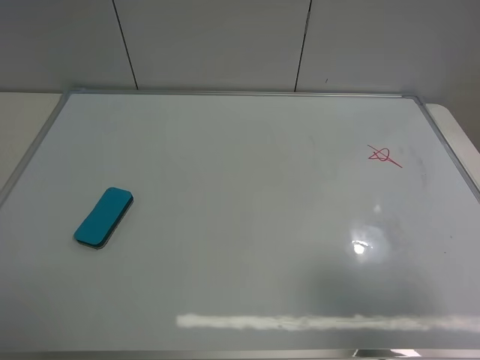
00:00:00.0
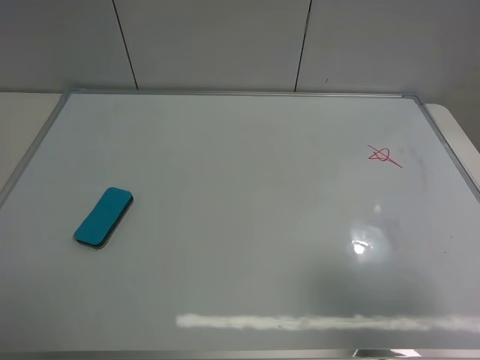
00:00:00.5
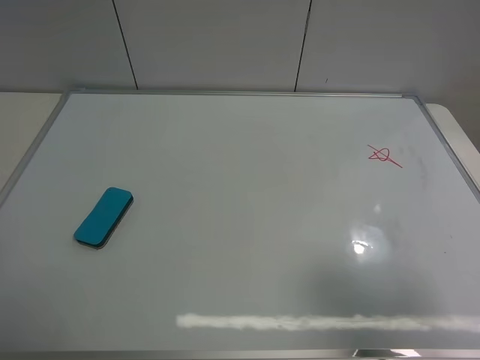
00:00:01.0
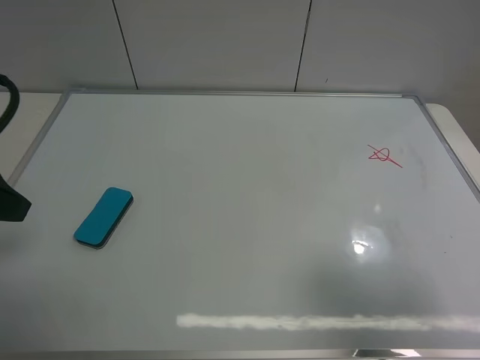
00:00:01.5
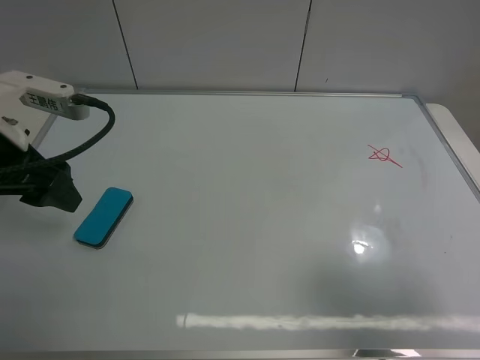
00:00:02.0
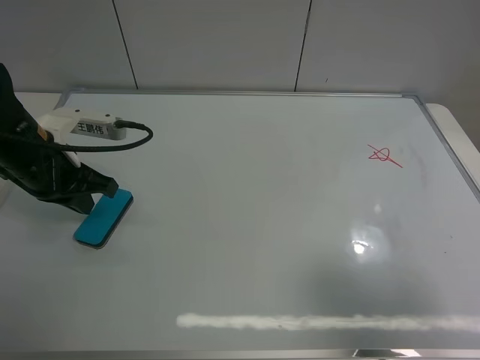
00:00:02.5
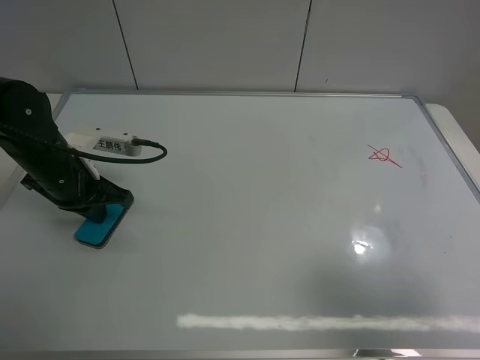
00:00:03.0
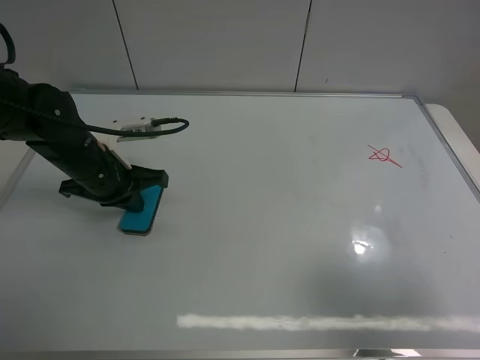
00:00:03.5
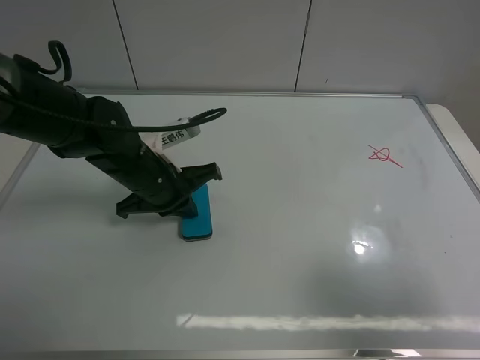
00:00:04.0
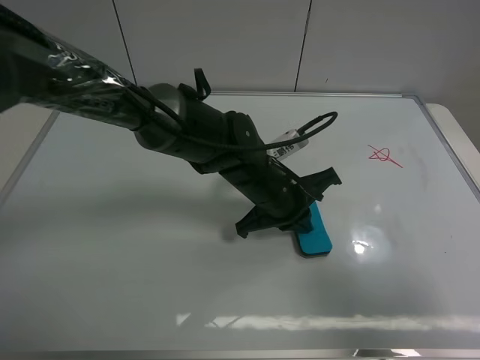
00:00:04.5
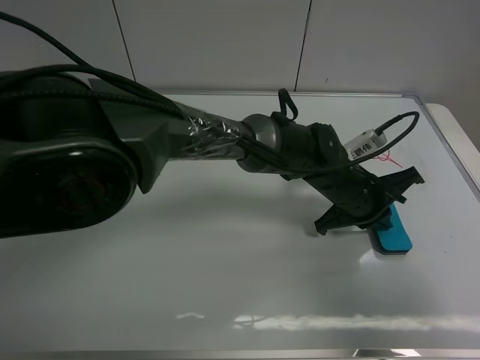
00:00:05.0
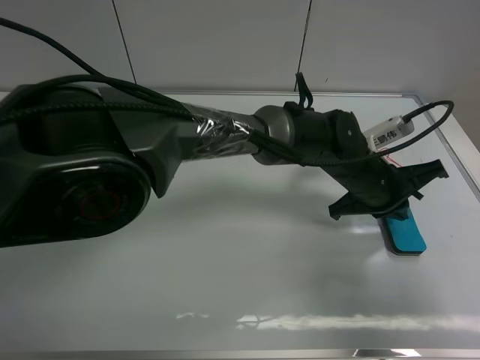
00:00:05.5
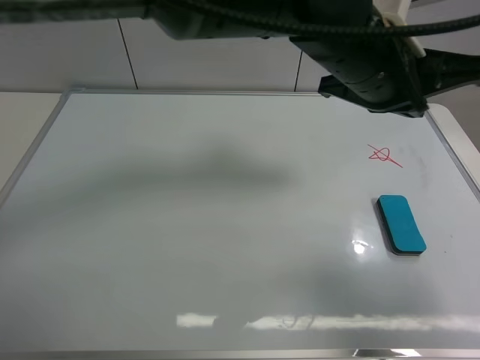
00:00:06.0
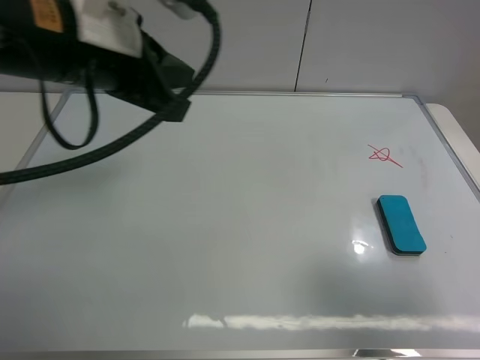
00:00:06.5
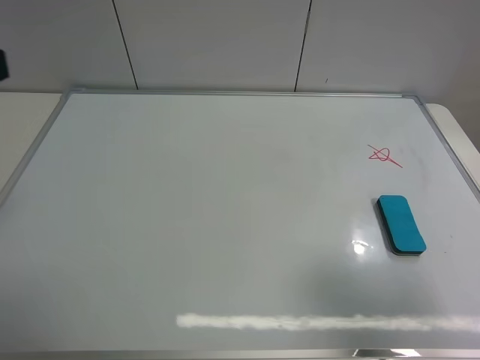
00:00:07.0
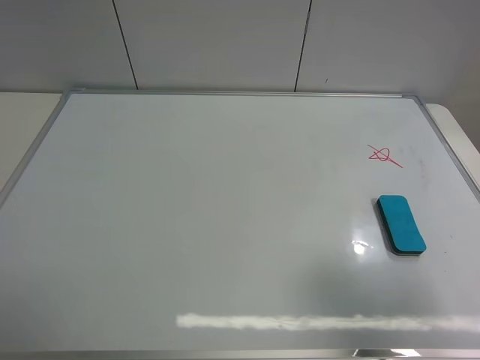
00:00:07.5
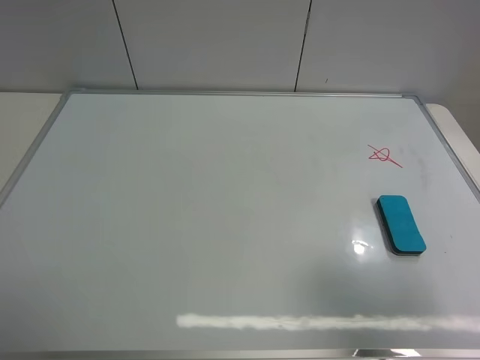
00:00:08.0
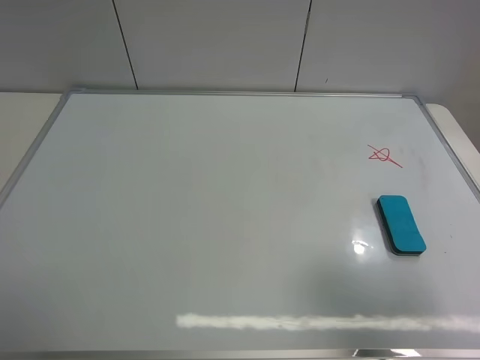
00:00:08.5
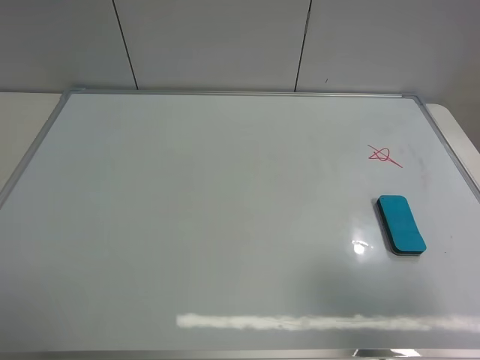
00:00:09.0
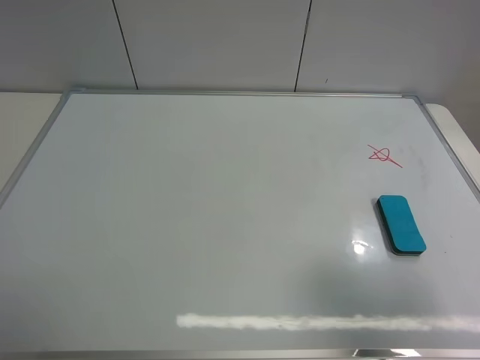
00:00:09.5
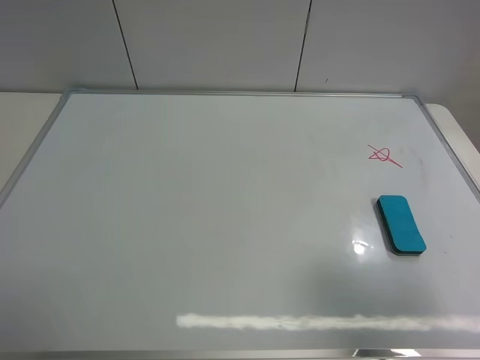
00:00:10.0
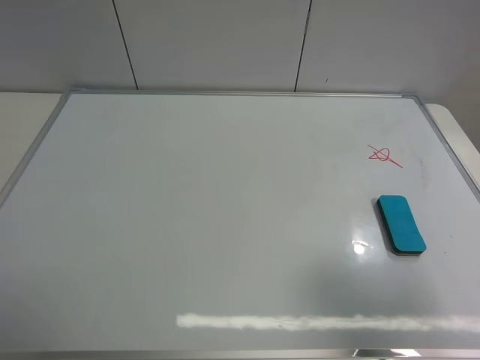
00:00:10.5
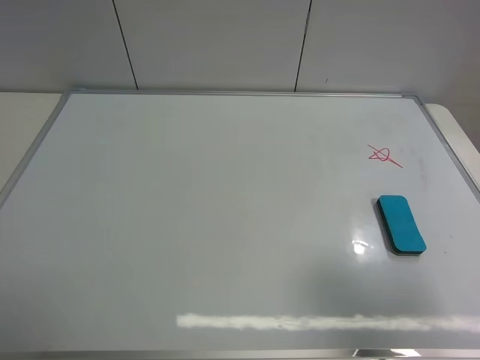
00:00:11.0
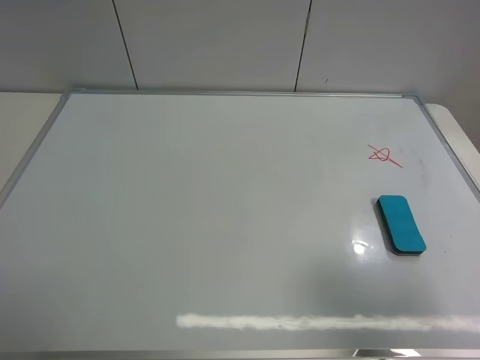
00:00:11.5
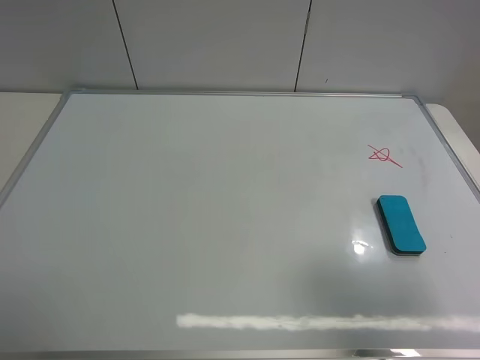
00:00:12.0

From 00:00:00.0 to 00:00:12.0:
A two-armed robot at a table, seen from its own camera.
Task of the whole recording: use the left gripper to place the eraser in the right, use the right gripper to pick up the eraser, wipe the notes on the whiteboard clean, and then put it down.
Step, from 00:00:00.0 to 00:00:05.0: Move the board eraser to the right of the whiteboard with left gripper.
From 00:00:00.0 to 00:00:02.0: The left gripper is displaced forward by some 20 cm, and closes up.
From 00:00:02.0 to 00:00:04.0: The left gripper heads to the right and downward, covering some 20 cm, and closes.
From 00:00:04.0 to 00:00:06.0: The left gripper travels to the right and upward by approximately 25 cm.
From 00:00:06.0 to 00:00:08.0: The left gripper travels to the left and backward by about 50 cm, and opens its fingers.
From 00:00:10.0 to 00:00:12.0: Neither gripper changes place.

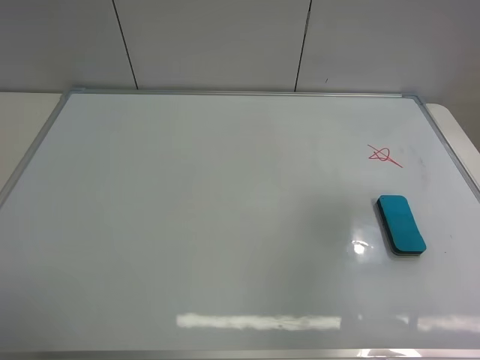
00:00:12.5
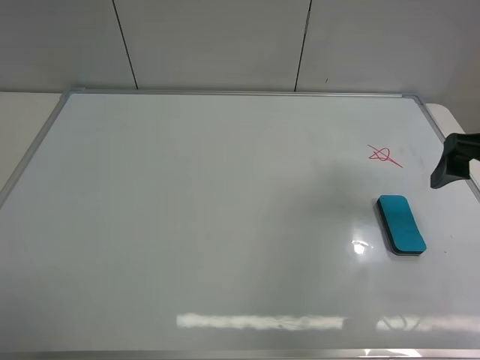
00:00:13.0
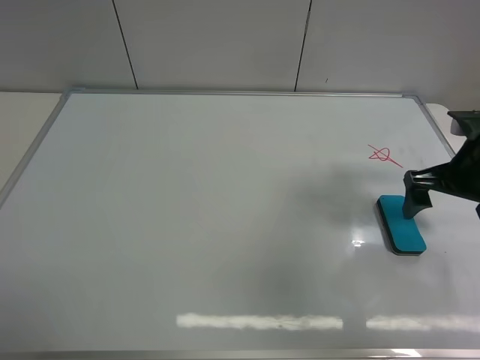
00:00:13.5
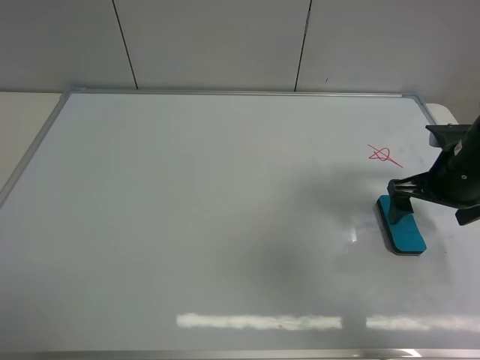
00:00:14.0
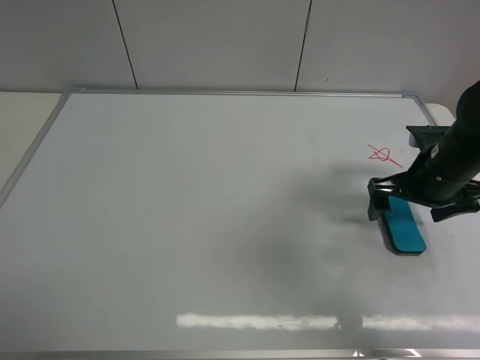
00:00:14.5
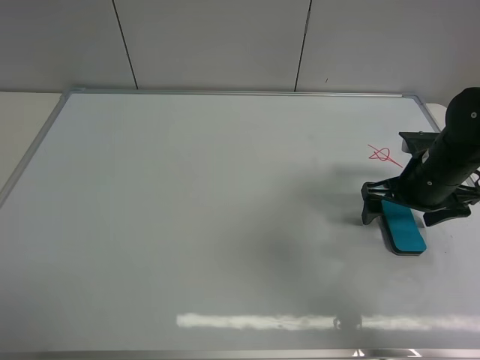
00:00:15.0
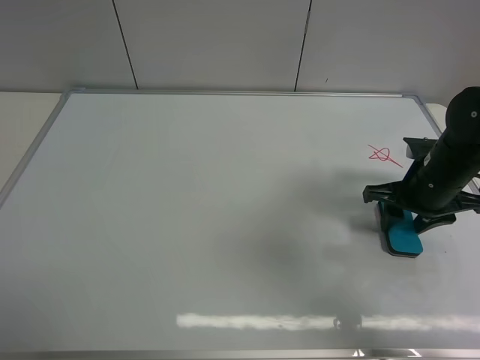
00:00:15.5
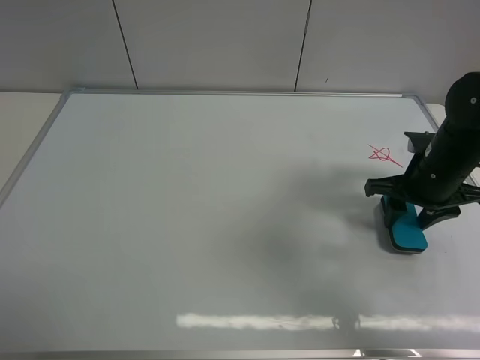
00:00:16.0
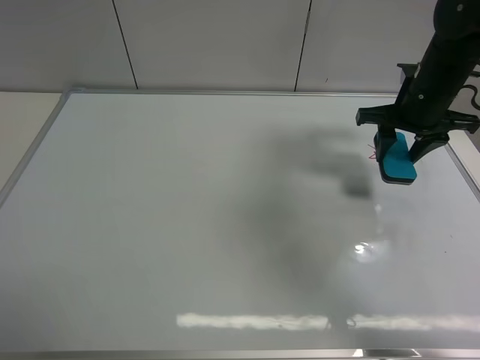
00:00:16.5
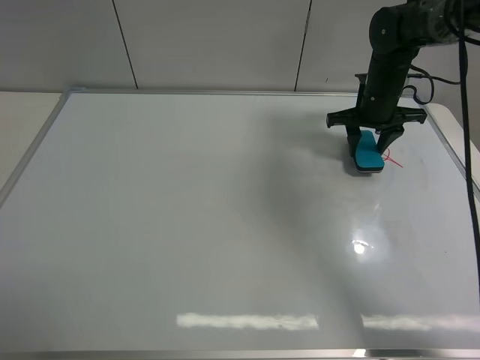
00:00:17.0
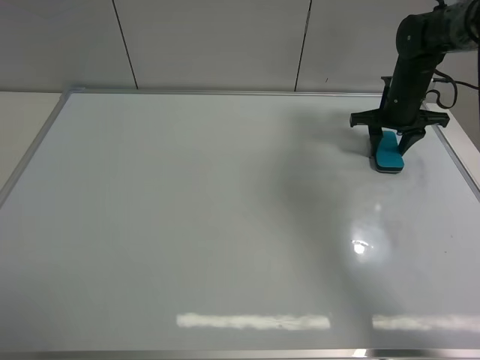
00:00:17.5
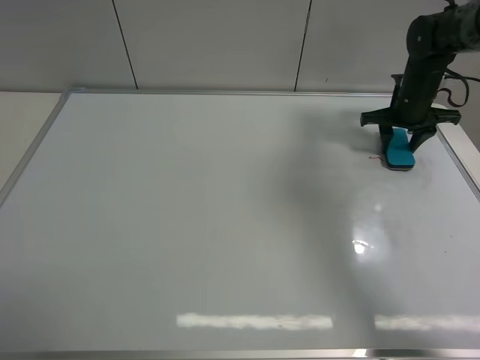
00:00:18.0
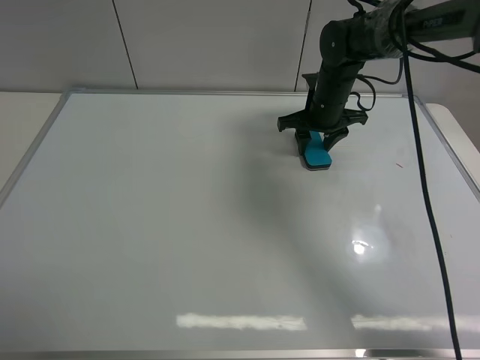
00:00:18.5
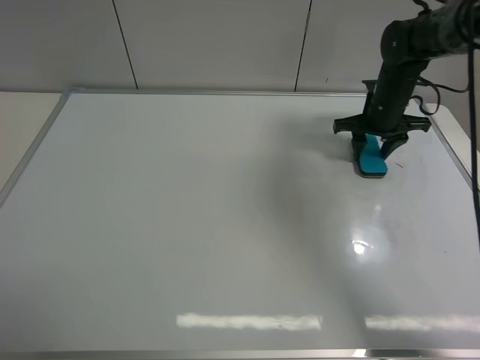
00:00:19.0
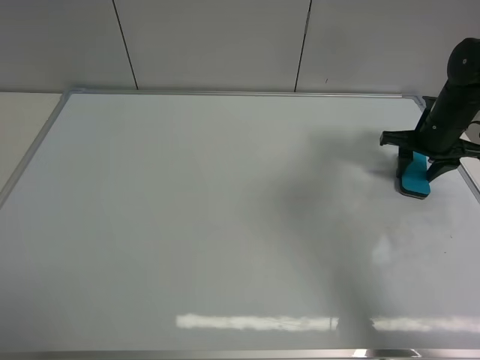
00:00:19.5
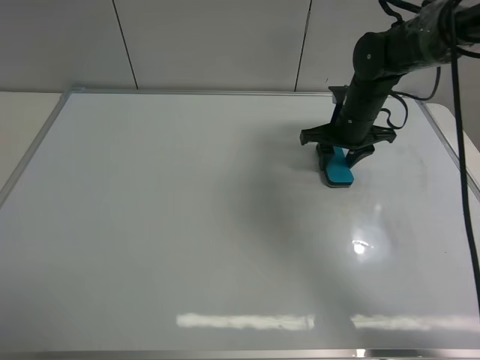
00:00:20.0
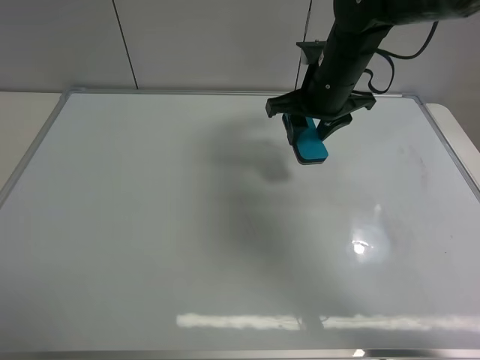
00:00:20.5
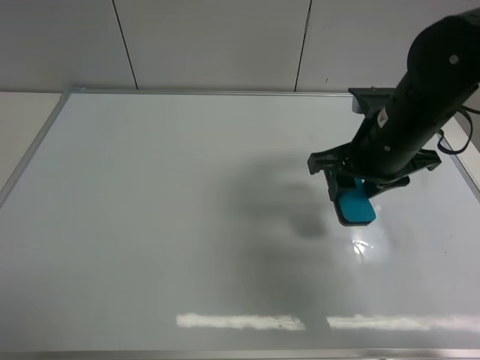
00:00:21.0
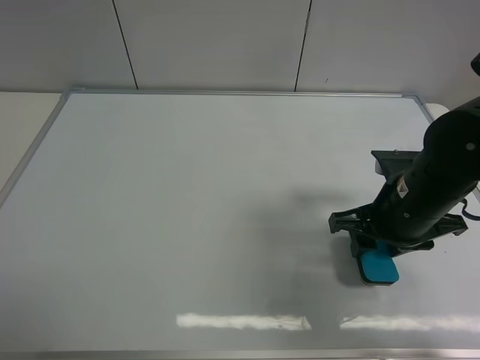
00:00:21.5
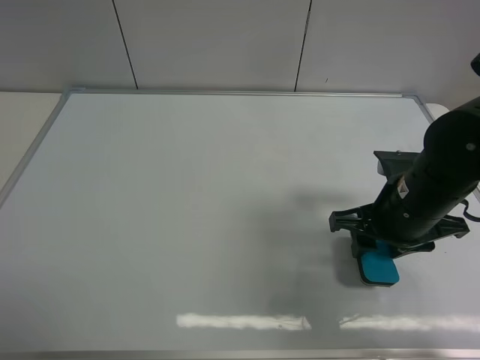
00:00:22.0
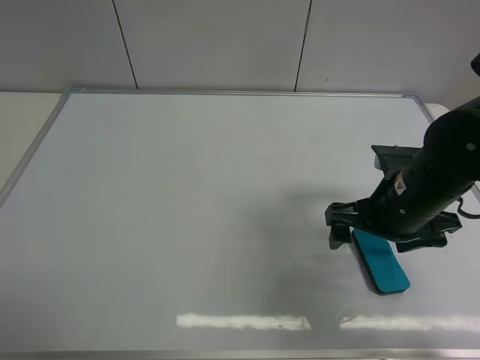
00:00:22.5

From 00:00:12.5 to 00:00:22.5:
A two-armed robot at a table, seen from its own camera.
Task of the whole recording: use the left gripper to place the eraser in the right, use the right gripper to pick up the eraser, wipe the notes on the whiteboard clean, and then put it down.
Step, from 00:00:12.5 to 00:00:16.0: Pick up the board eraser with right gripper.
Step, from 00:00:16.5 to 00:00:20.0: Wipe off the writing on the board with right gripper.
Step, from 00:00:20.5 to 00:00:22.0: Move the board eraser to the right of the whiteboard with right gripper.
From 00:00:12.5 to 00:00:14.5: The right gripper heads downward and forward, covering roughly 20 cm.
From 00:00:14.5 to 00:00:16.5: The right gripper is displaced forward and upward by about 10 cm, and closes up.
From 00:00:16.5 to 00:00:18.5: The right gripper travels to the left, forward and downward by roughly 15 cm.
From 00:00:18.5 to 00:00:20.5: The right gripper goes roughly 10 cm upward and backward, and goes to the right and returns, some 20 cm each way.
From 00:00:20.5 to 00:00:22.5: The right gripper goes some 20 cm backward, to the right and downward, and opens.

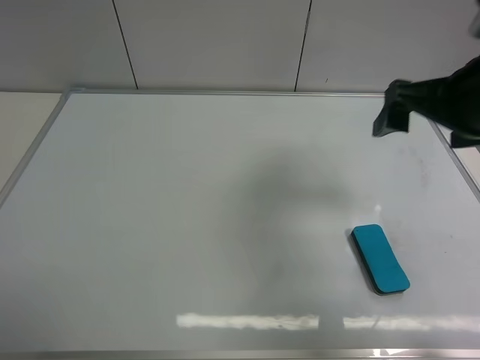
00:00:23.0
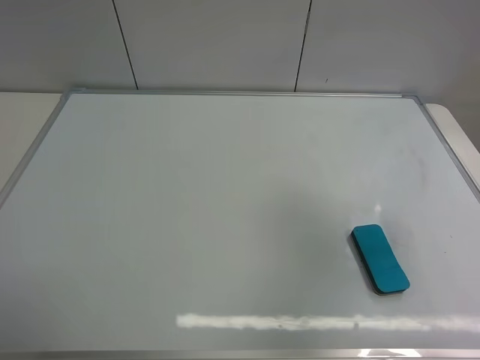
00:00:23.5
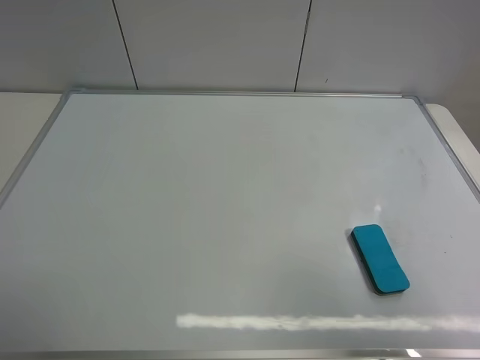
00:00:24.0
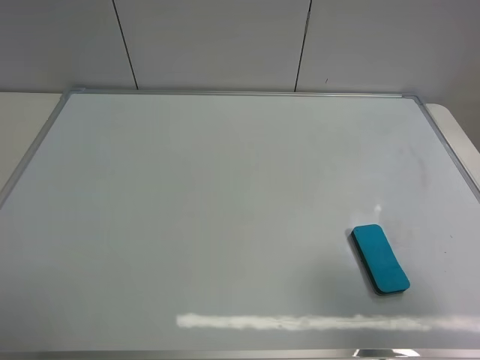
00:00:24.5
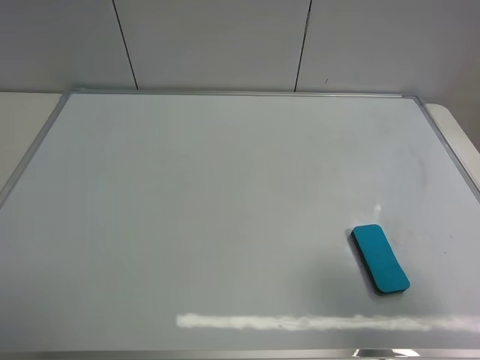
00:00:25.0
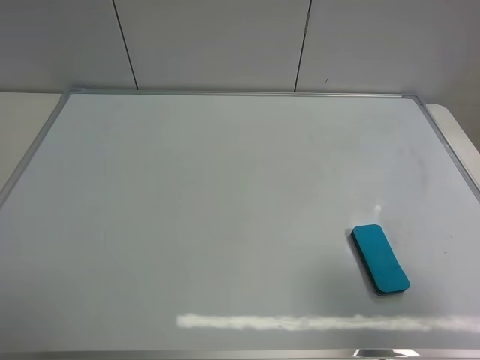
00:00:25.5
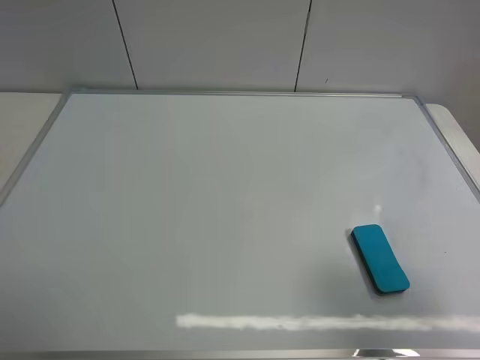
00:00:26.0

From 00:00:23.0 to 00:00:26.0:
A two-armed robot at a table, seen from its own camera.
Task of the whole recording: use the left gripper to place the eraser in the right, use the right gripper to pick up the eraser, wipe the notes on the whiteboard clean, and then put it down.
From 00:00:23.0 to 00:00:24.5: The right gripper moves backward, roughly 20 cm.
From 00:00:24.5 to 00:00:26.0: Both grippers stay about where they are.
